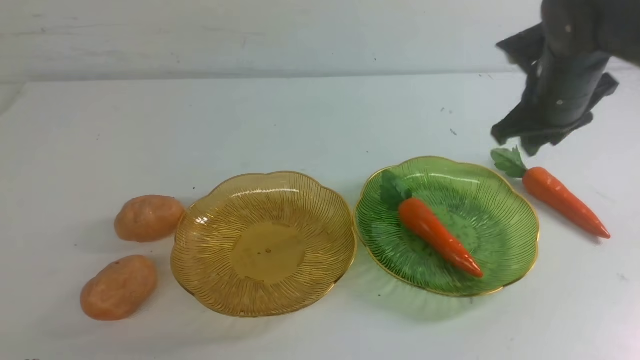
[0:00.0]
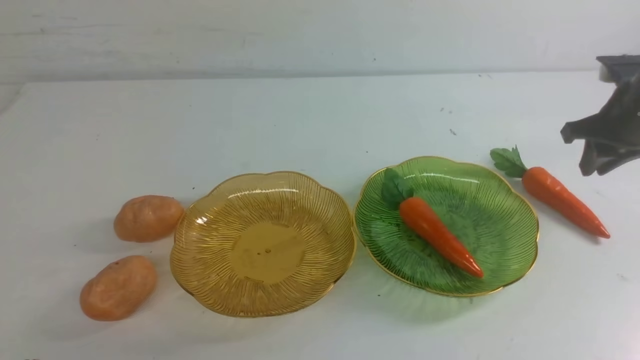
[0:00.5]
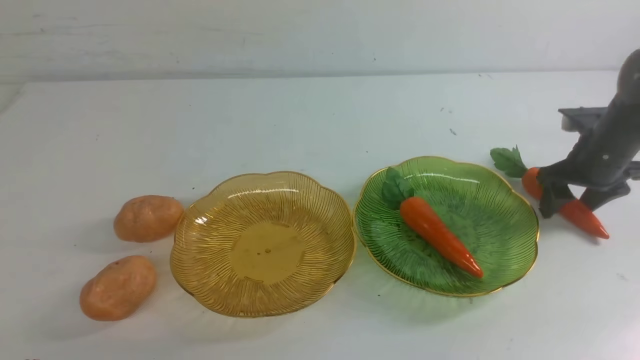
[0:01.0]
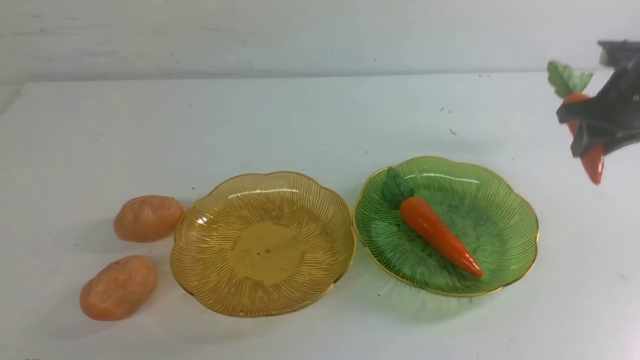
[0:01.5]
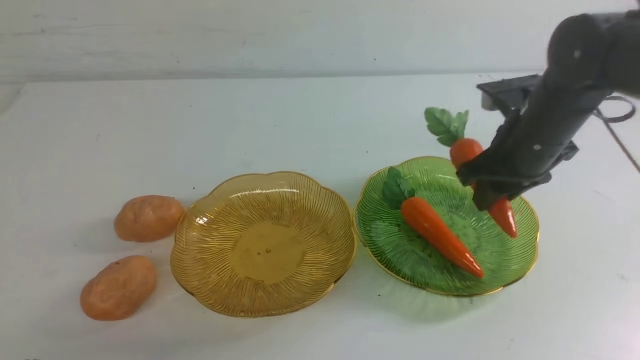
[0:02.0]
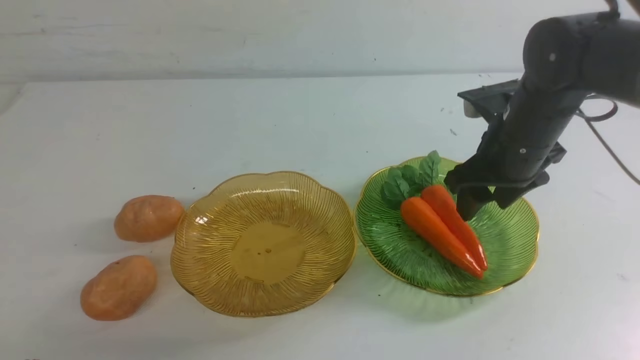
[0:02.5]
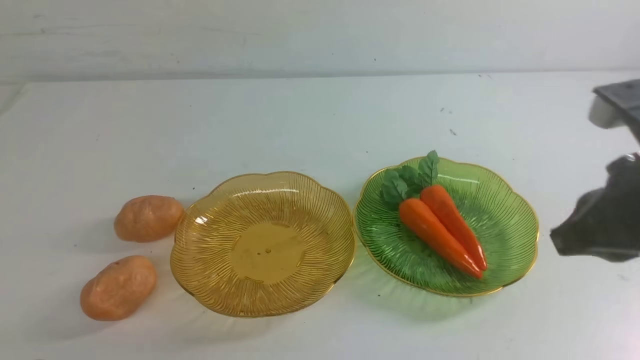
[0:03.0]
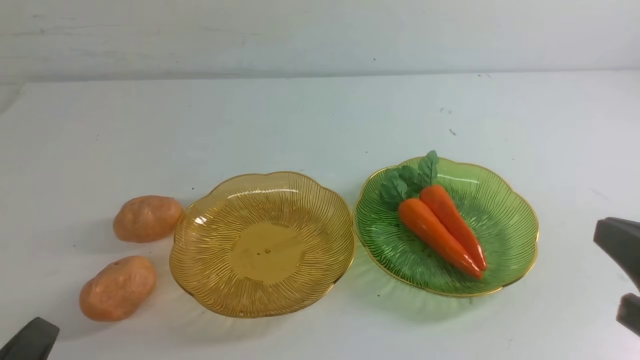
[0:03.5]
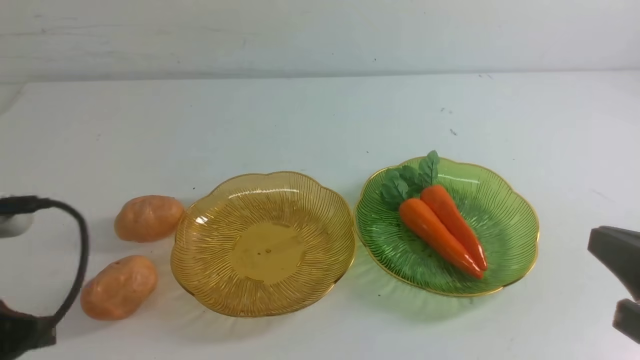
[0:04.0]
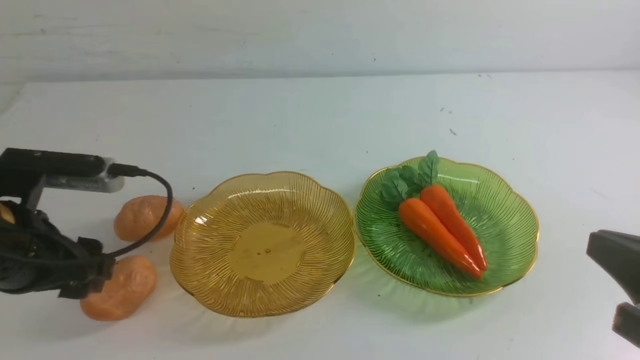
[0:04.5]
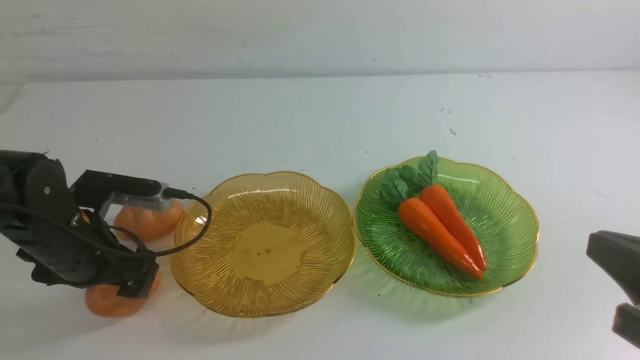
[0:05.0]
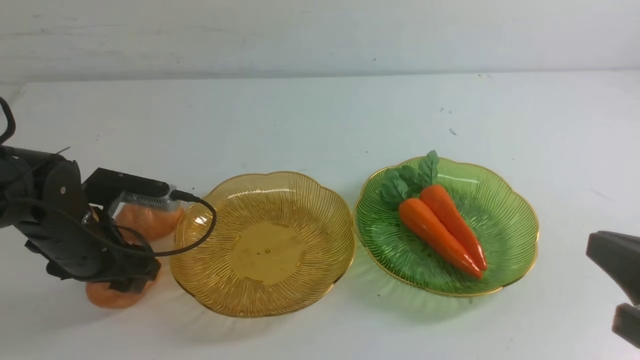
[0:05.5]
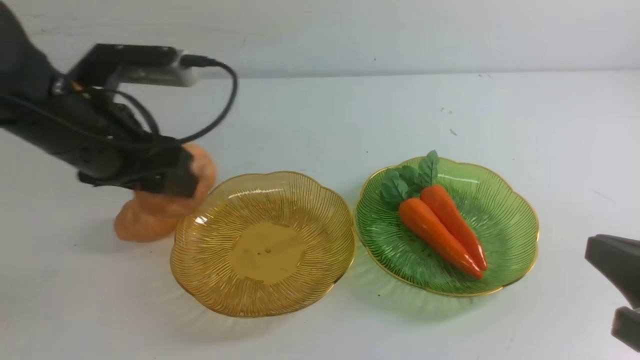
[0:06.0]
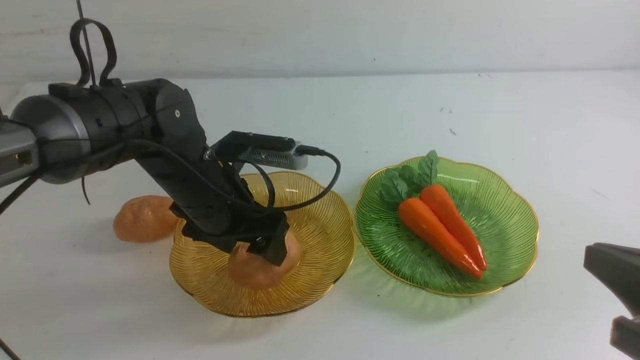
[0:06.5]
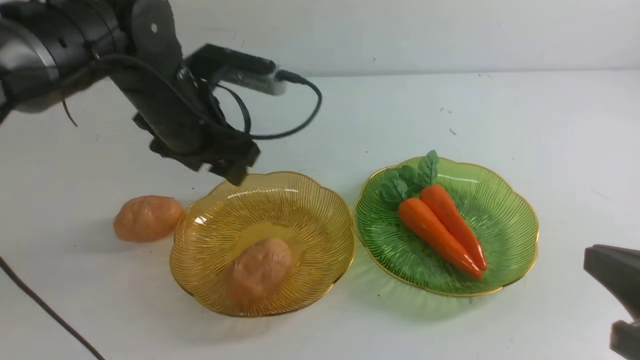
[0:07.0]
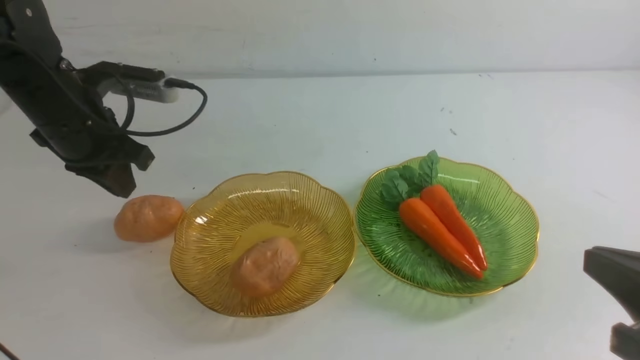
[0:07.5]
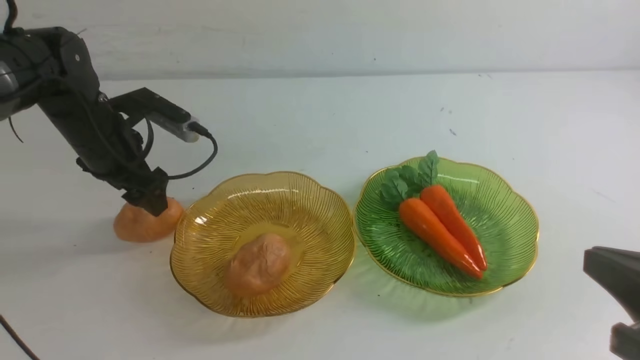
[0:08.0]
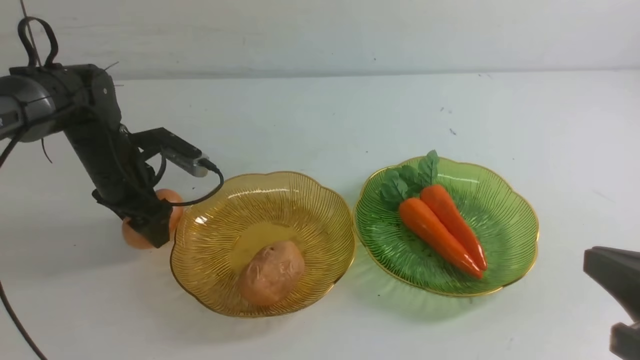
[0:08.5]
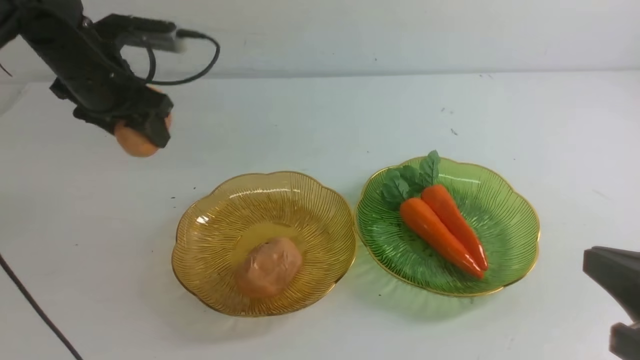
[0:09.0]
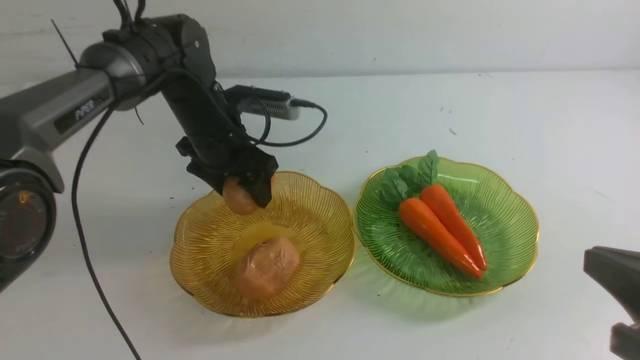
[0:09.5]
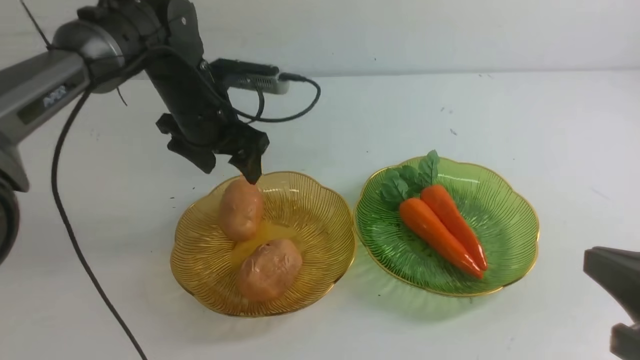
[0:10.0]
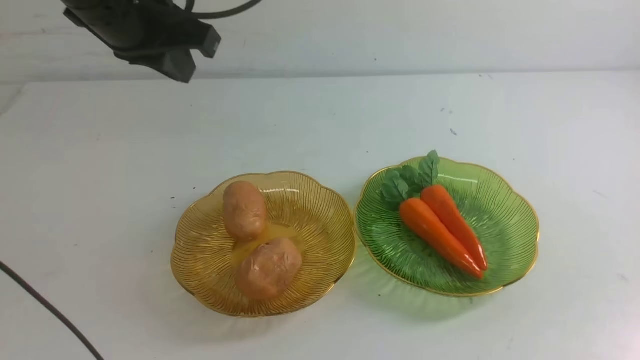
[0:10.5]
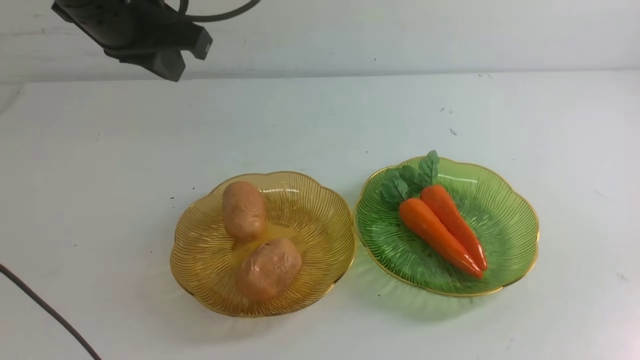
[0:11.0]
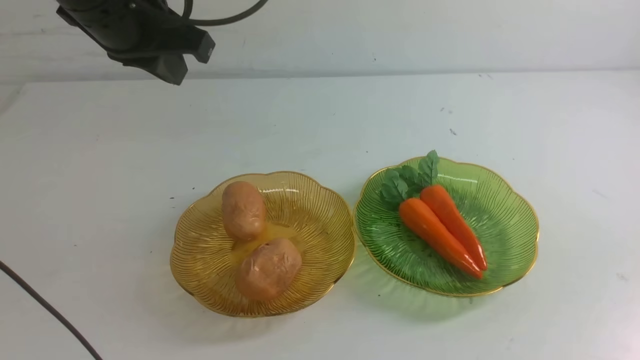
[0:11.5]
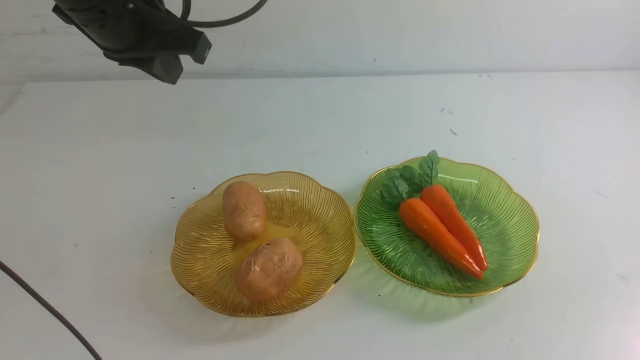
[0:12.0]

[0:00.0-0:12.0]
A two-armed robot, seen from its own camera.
Step, 0:00.0 to 0:02.0: use the right arm to grab a carrot and put it into the right plate.
Step, 0:02.5 to 0:10.0: Grab a potato with your left arm and put it on the left plate.
0:00.0 to 0:02.0: The right gripper goes to the right and returns, about 10 cm each way.
0:02.0 to 0:04.0: The left gripper moves upward and forward, about 15 cm, while the right gripper is displaced backward by about 25 cm, and closes up.
0:04.0 to 0:06.0: The left gripper moves forward, some 15 cm, and opens its fingers.
0:06.0 to 0:08.0: The left gripper is displaced forward, downward and to the left by roughly 15 cm, and closes, then opens again.
0:08.0 to 0:10.0: The left gripper moves up and down over some 20 cm, changing direction 2 times, and closes its fingers.
0:10.0 to 0:12.0: The right gripper travels downward by roughly 15 cm. Meanwhile the left gripper moves backward, roughly 10 cm.

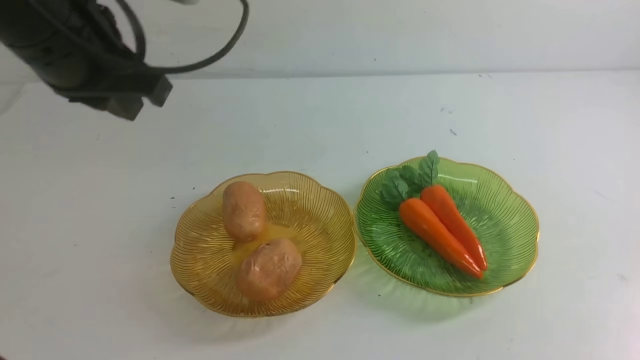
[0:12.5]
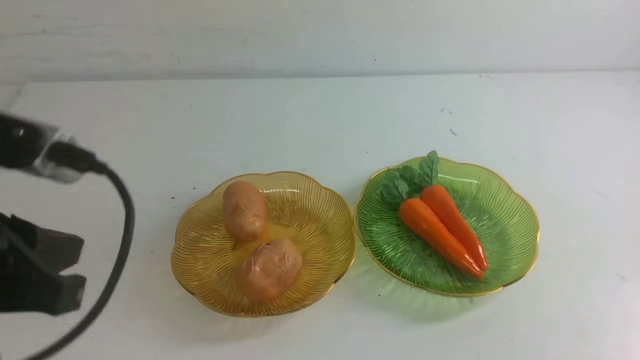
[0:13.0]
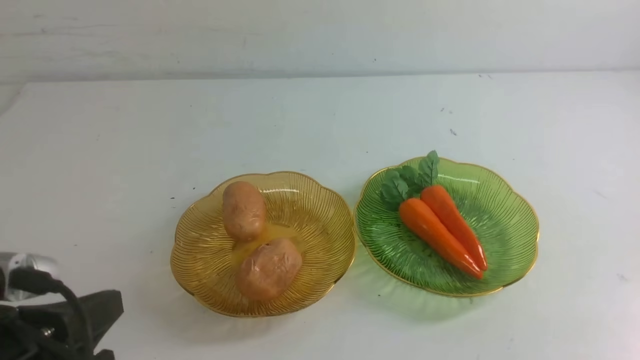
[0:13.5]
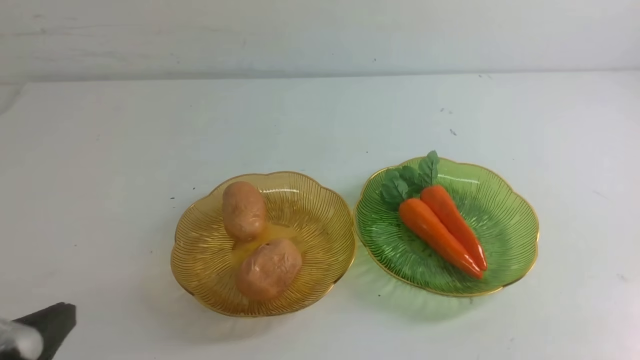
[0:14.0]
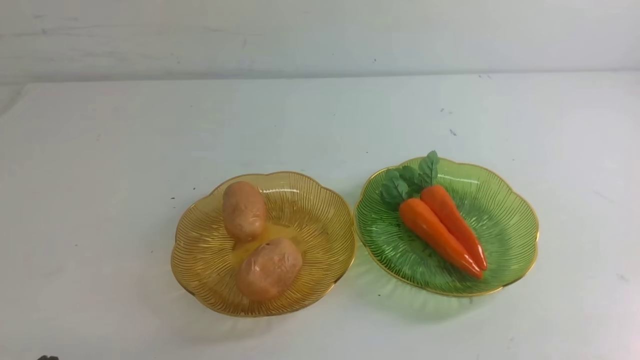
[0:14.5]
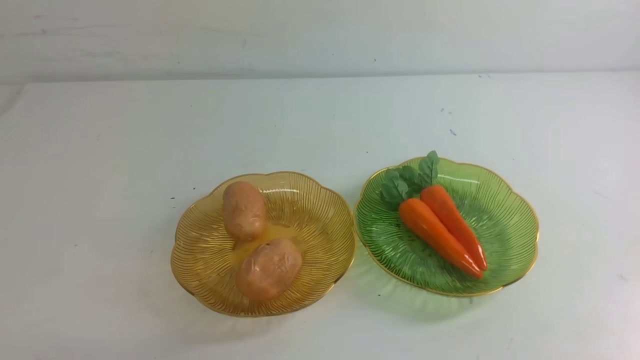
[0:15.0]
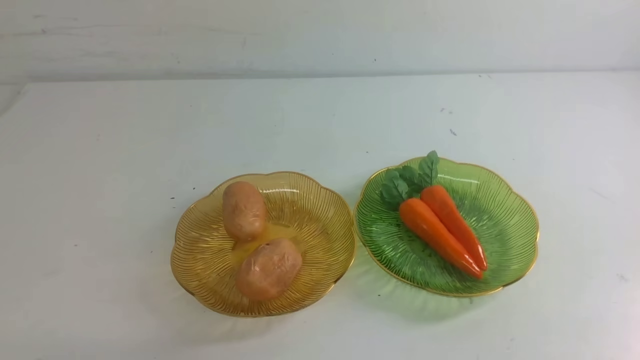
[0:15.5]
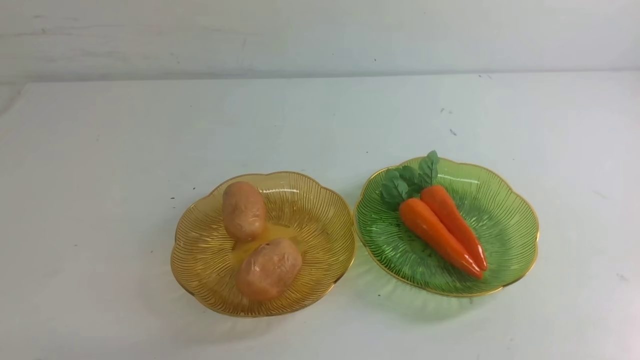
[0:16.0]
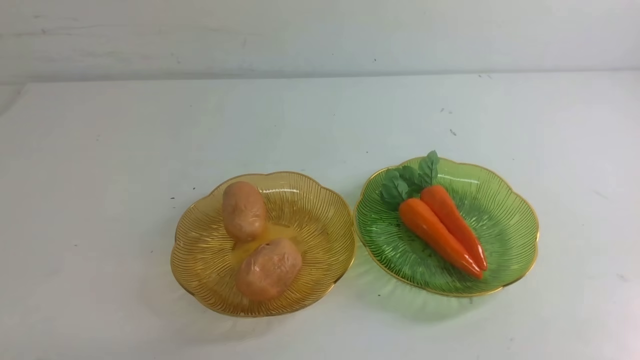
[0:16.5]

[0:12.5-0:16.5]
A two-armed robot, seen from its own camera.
0:12.5 to 0:14.5: The left gripper is displaced downward and backward by about 25 cm.
0:14.5 to 0:16.5: Both grippers stay put.
